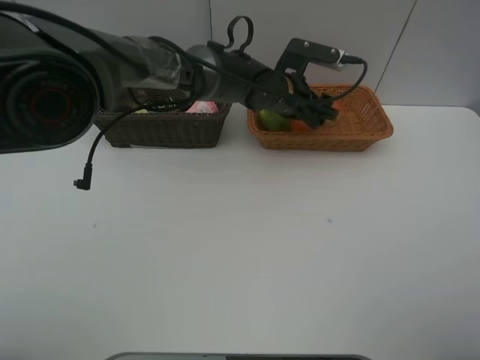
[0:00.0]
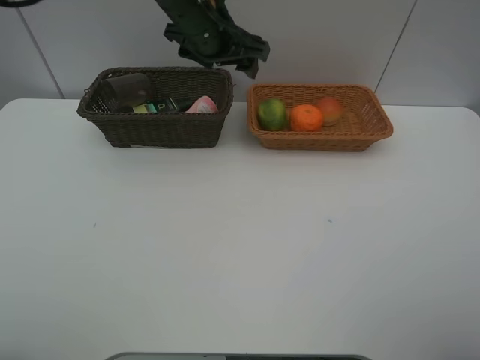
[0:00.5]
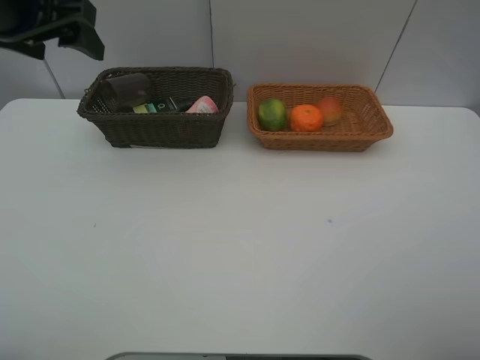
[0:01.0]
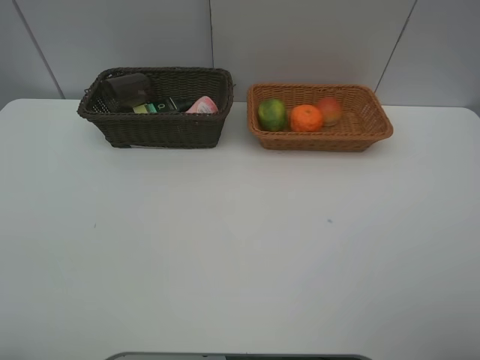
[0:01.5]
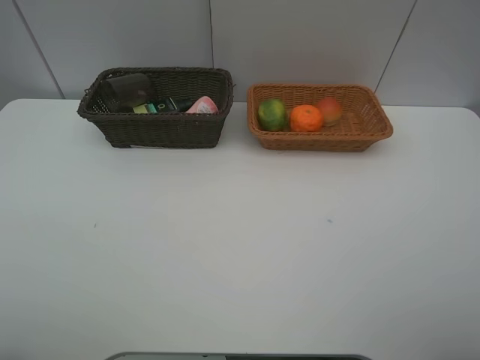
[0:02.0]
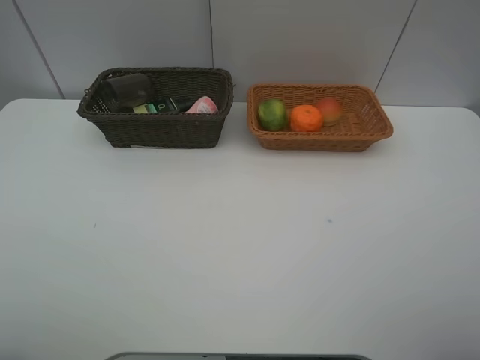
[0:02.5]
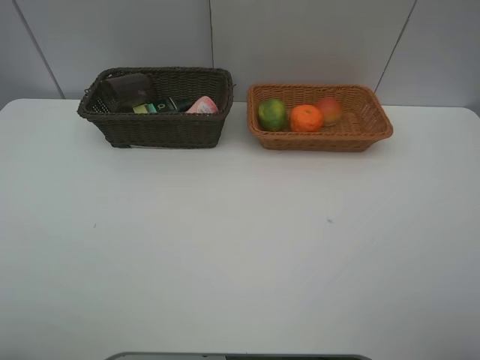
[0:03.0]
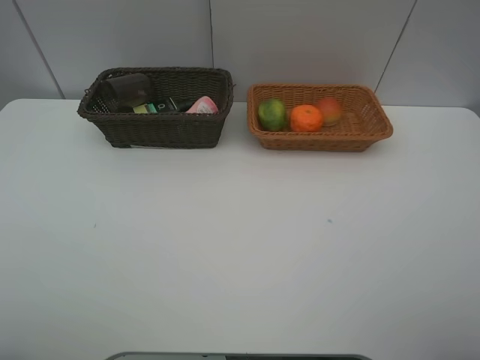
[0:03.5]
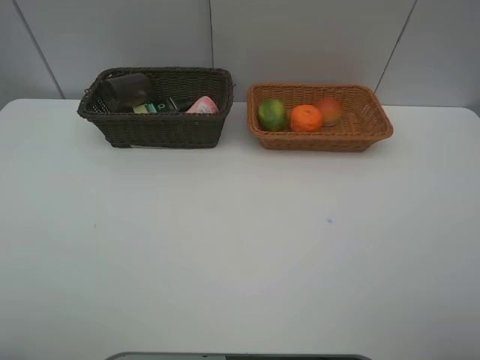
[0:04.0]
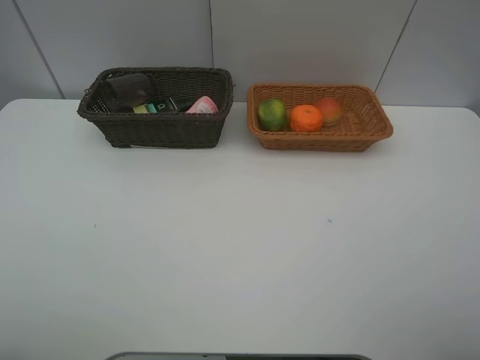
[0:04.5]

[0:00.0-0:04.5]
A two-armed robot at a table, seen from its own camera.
Task of the whole recording: place multiple objects separately in different baskets.
0:00.0 to 0:02.0: The left gripper goes roughly 60 cm backward, to the left and upward.

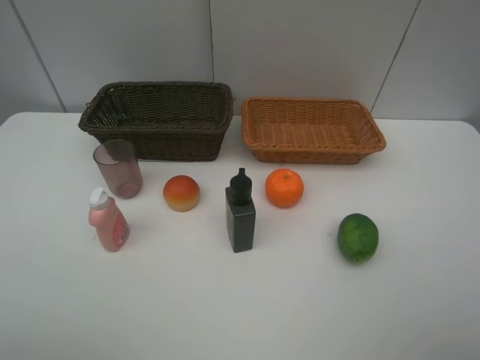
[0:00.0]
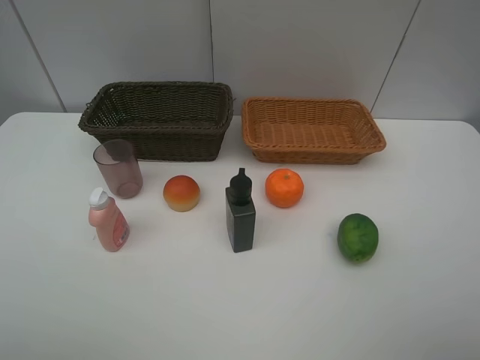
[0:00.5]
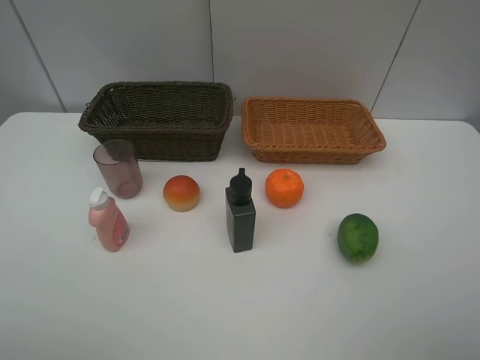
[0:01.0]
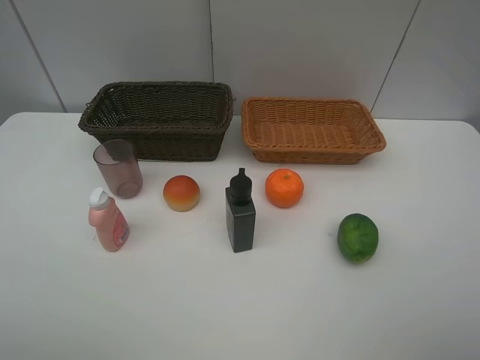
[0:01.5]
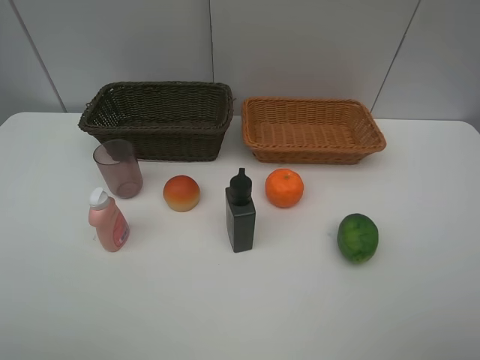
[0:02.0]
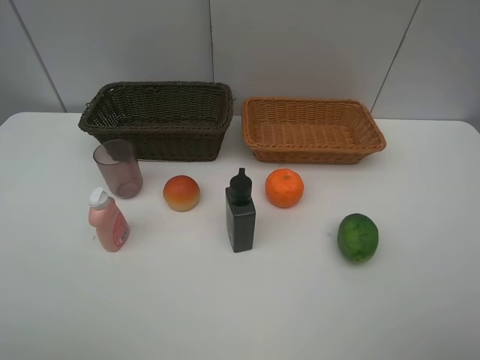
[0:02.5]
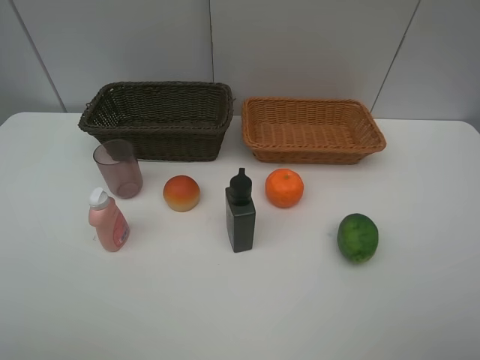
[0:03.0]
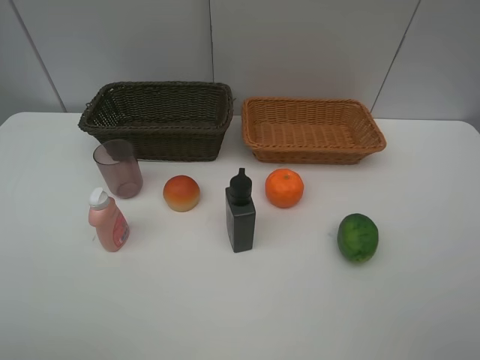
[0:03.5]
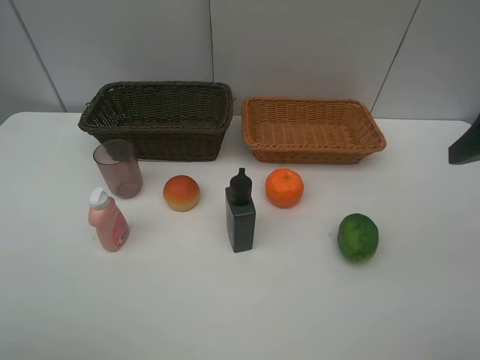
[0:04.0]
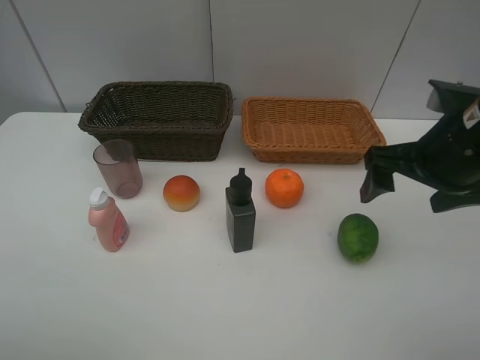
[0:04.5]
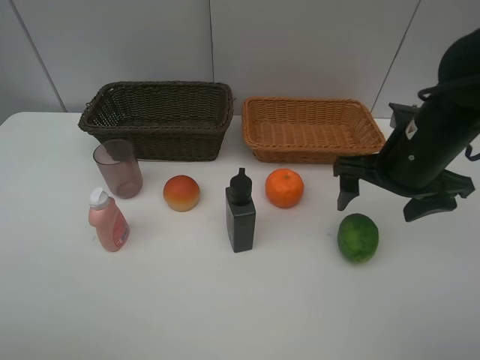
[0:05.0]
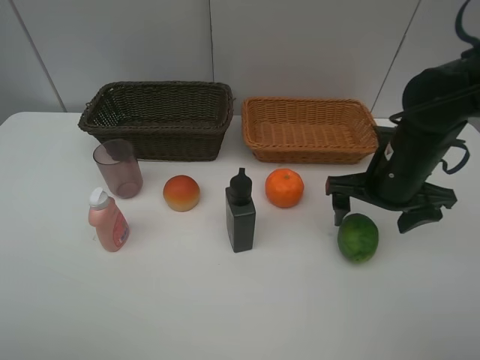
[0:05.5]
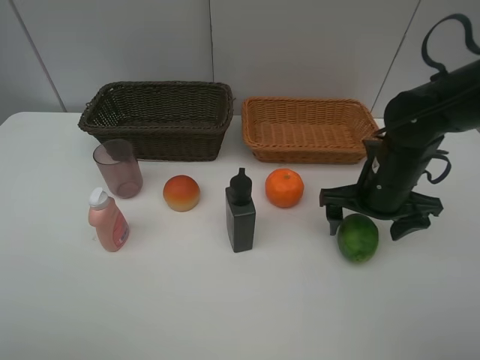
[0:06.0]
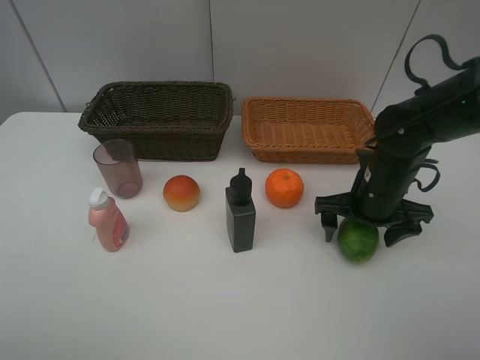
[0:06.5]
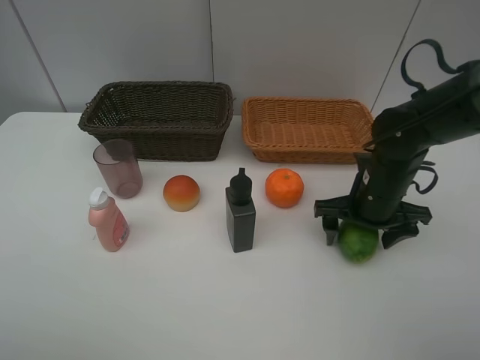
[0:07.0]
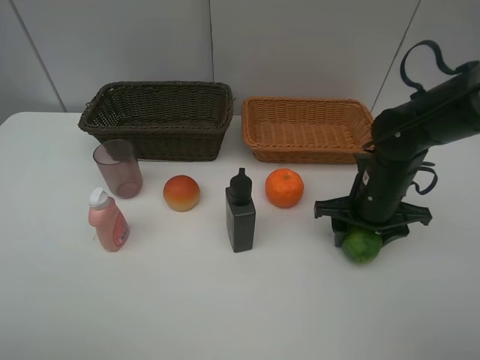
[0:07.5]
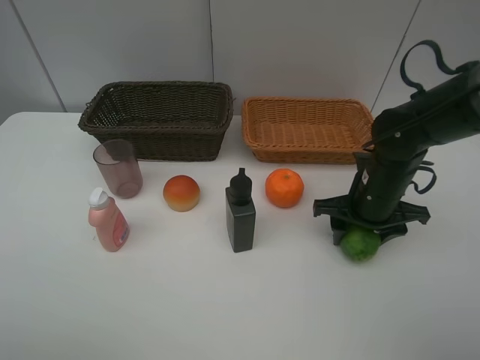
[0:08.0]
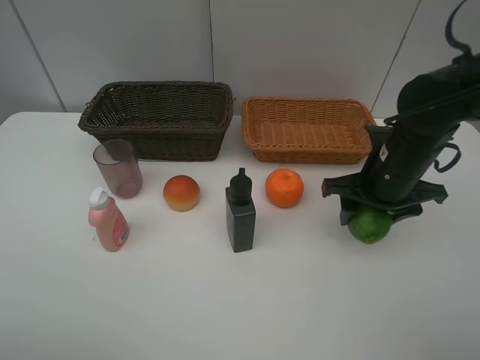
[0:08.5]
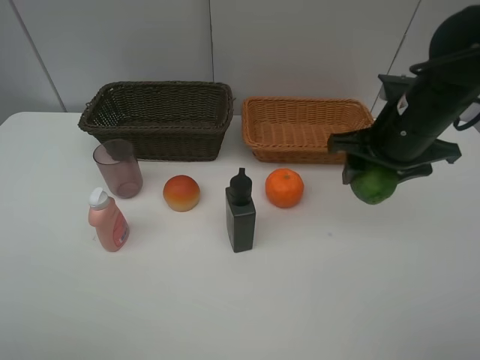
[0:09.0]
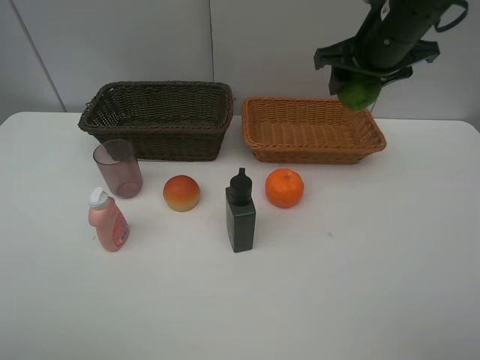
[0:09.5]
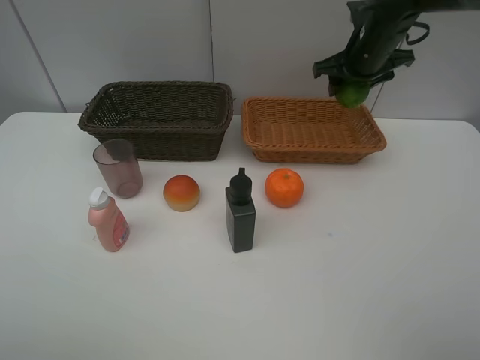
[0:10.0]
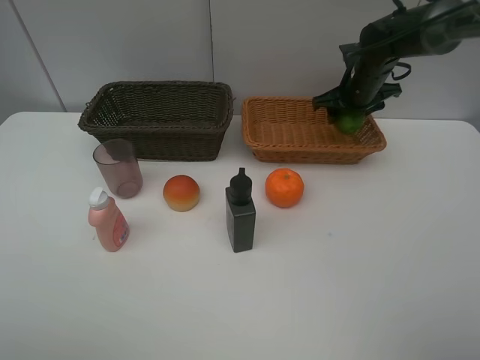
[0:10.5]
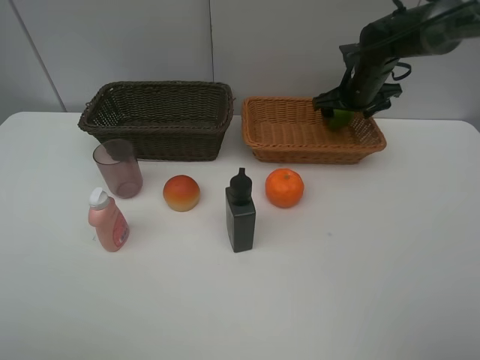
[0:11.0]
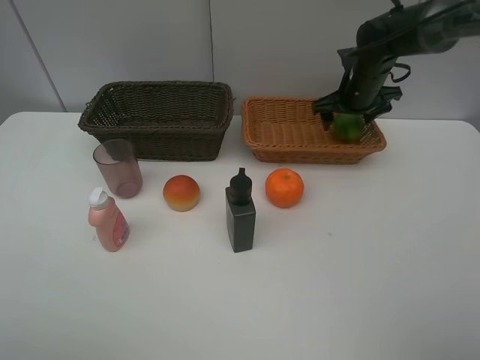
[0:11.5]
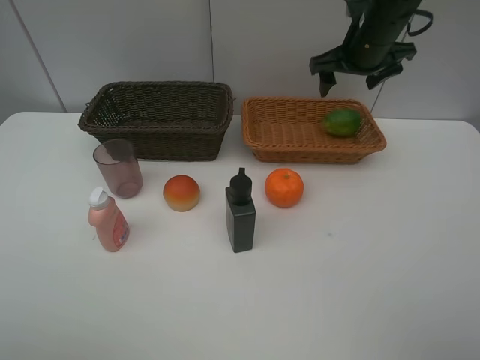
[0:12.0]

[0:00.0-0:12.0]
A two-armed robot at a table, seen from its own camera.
Task of the whole recording: place multiple objects separately in different baskets.
0:00.0 to 0:02.0: The two grippers keep their place.
0:04.0 to 0:06.0: The right gripper heads downward, forward and to the left, covering some 20 cm.
0:06.0 to 0:08.0: The right gripper closes.
0:08.0 to 0:10.0: The right gripper is displaced forward and upward by some 20 cm.
0:10.0 to 0:12.0: The right gripper shifts by roughly 5 cm, and opens.

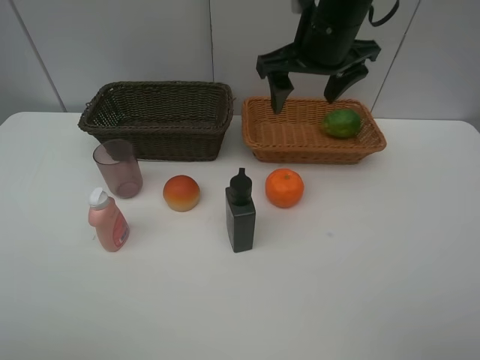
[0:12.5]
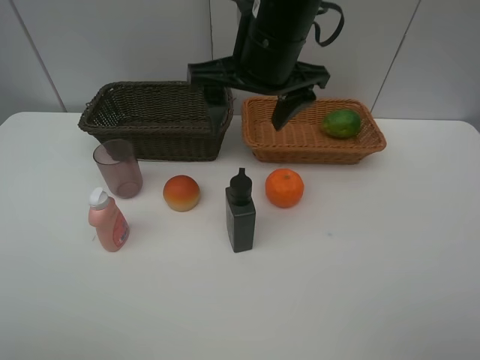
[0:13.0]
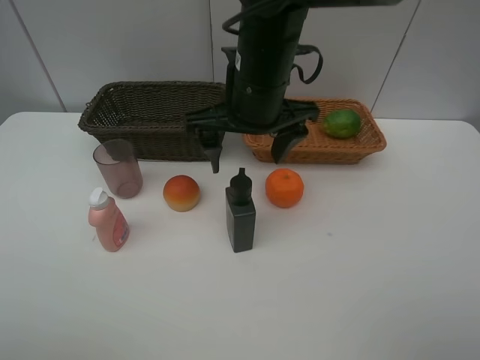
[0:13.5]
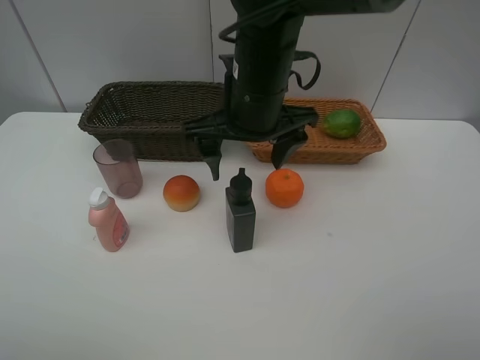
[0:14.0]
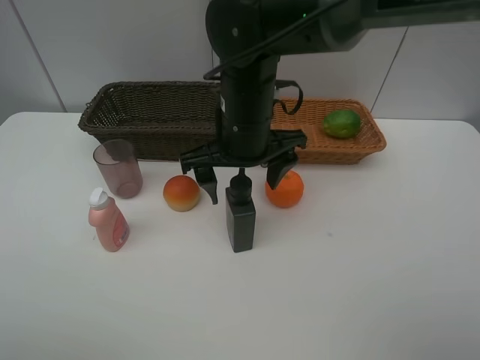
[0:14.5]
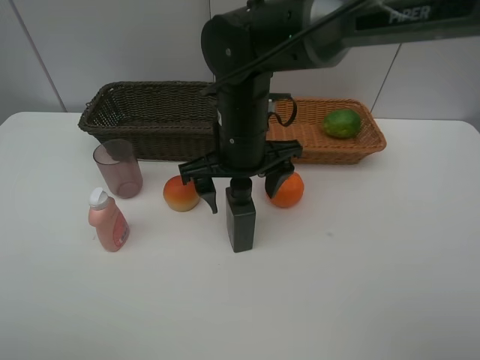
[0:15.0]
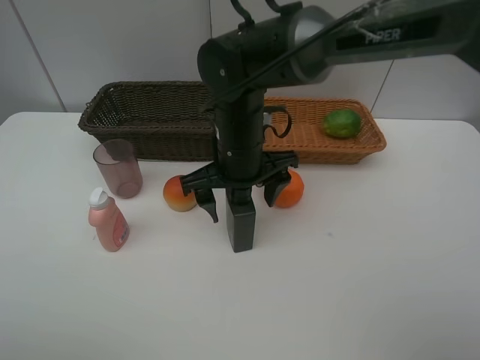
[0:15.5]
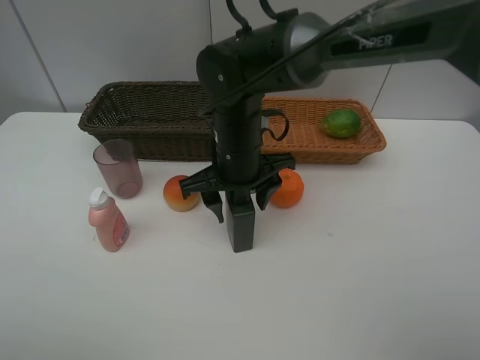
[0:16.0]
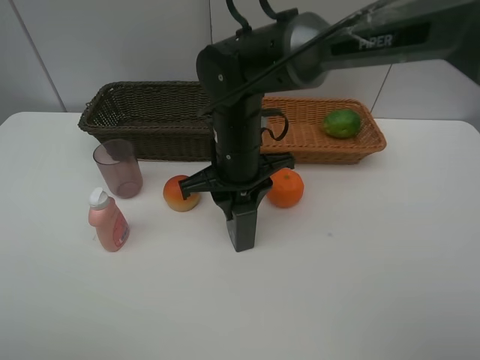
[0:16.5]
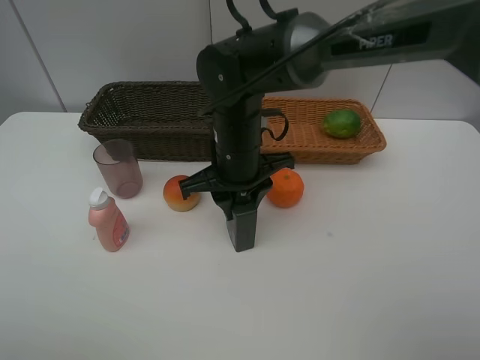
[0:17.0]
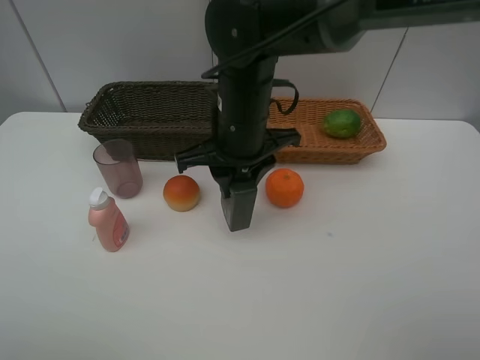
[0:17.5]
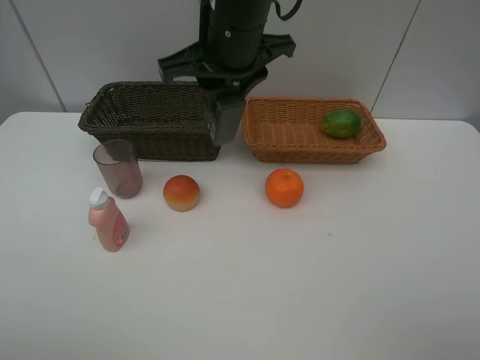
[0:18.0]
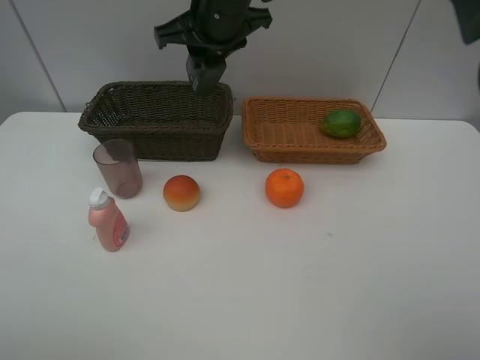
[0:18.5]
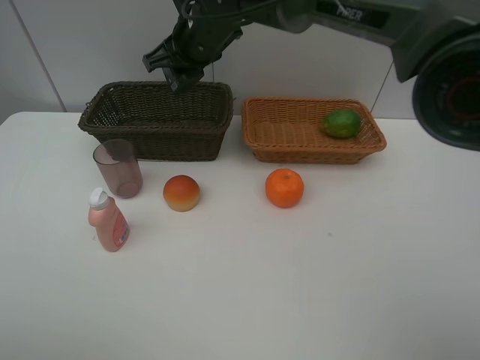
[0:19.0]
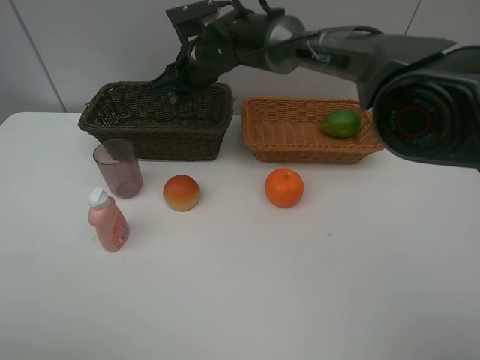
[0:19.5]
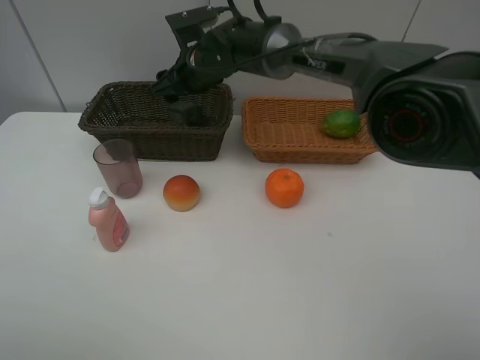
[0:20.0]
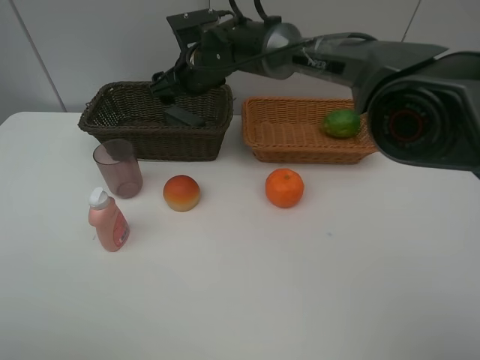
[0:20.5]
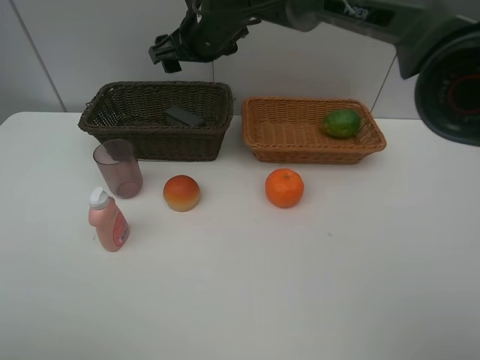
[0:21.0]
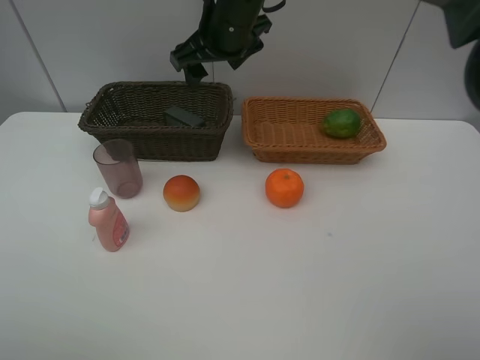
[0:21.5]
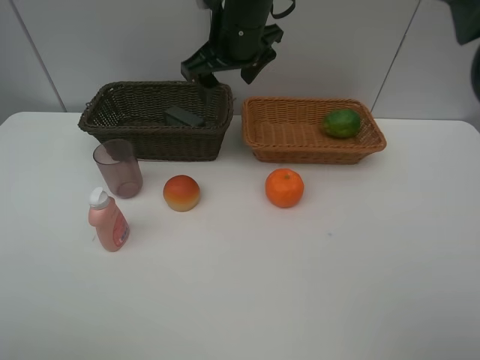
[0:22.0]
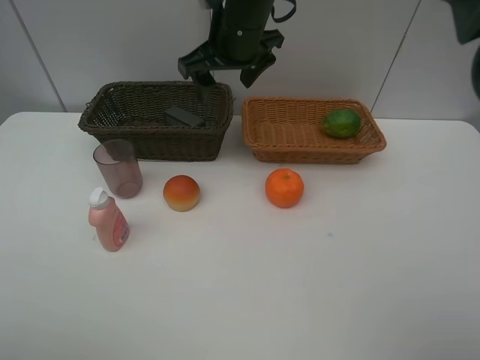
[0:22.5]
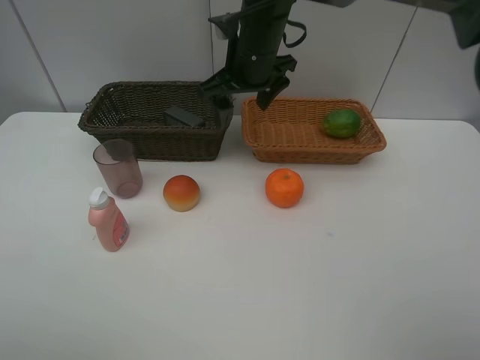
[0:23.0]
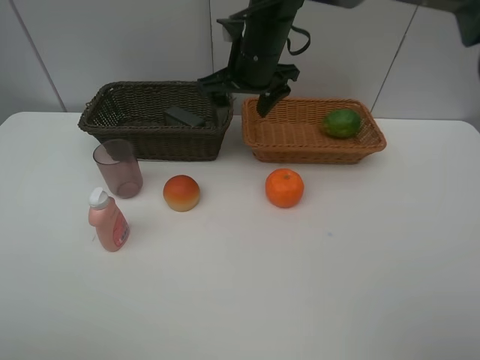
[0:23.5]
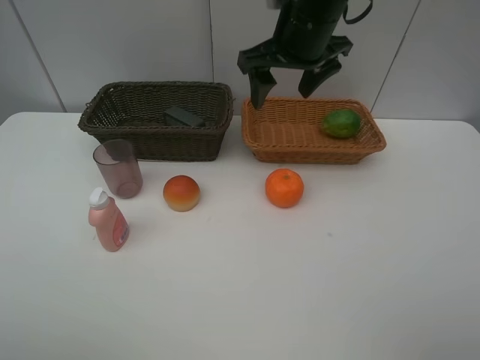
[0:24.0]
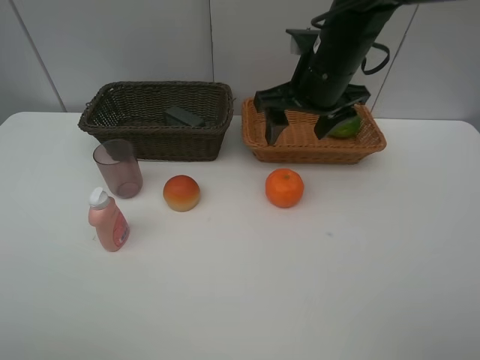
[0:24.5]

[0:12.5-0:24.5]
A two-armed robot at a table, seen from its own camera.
Task of the whole recording: place multiple objects separately in different baskets.
0:12.5 to 0:14.5: The right gripper is displaced downward, to the left and backward by roughly 15 cm.
0:14.5 to 0:16.5: The right gripper closes up.
0:16.5 to 0:18.5: The right gripper heads upward and forward, covering roughly 15 cm.
0:18.5 to 0:20.5: The right gripper moves downward and forward, approximately 10 cm, and opens.
0:20.5 to 0:22.5: The right gripper heads upward, to the right and backward, covering approximately 10 cm.
0:22.5 to 0:24.5: The right gripper heads to the right and backward, covering some 10 cm.
